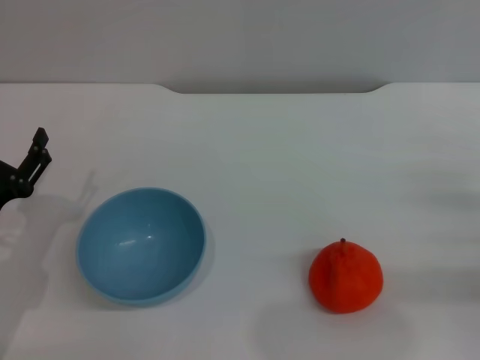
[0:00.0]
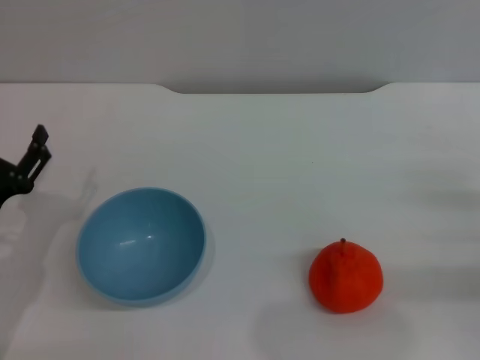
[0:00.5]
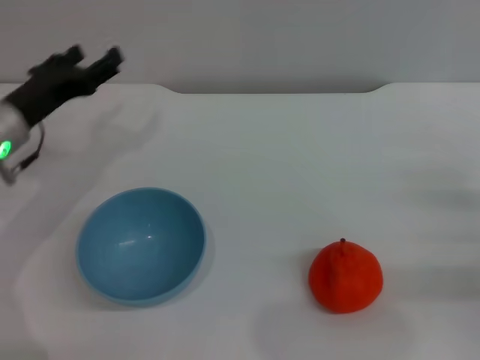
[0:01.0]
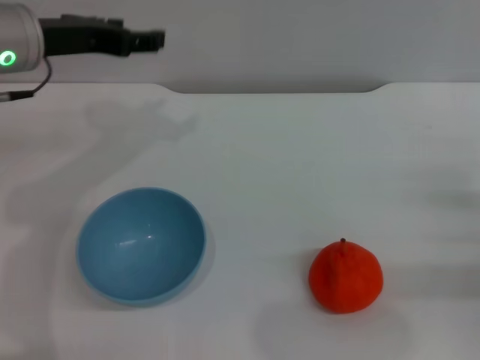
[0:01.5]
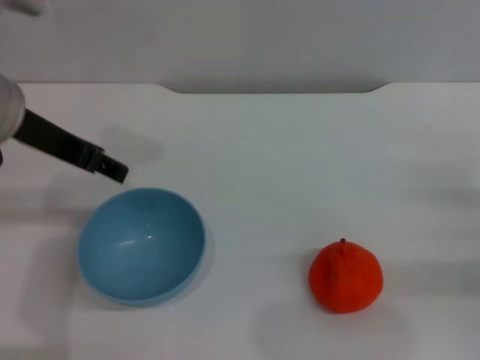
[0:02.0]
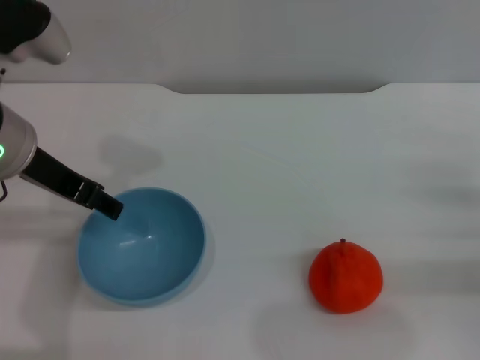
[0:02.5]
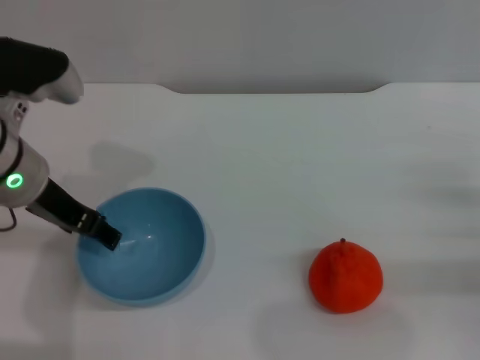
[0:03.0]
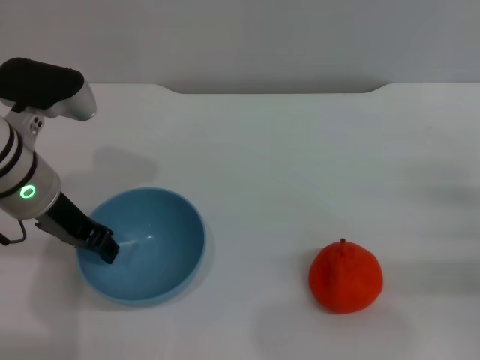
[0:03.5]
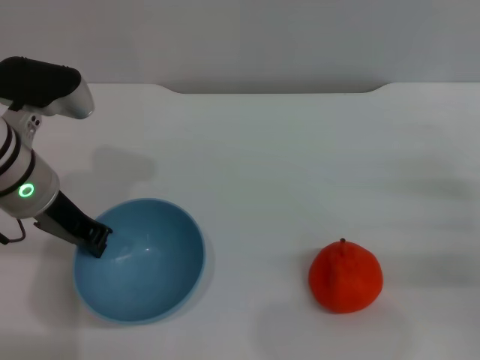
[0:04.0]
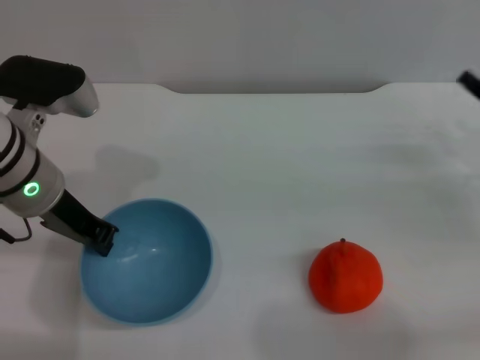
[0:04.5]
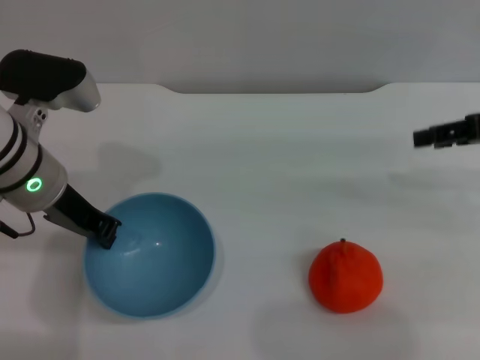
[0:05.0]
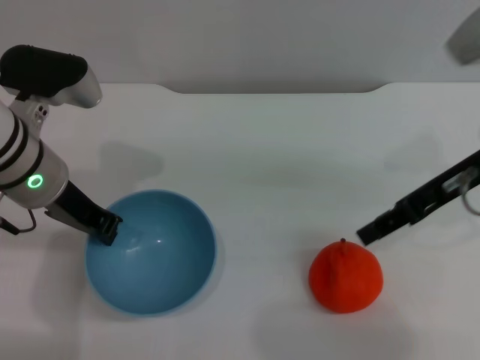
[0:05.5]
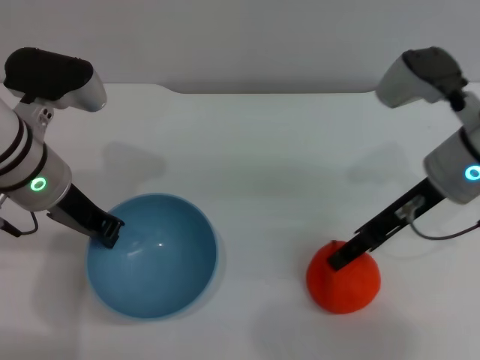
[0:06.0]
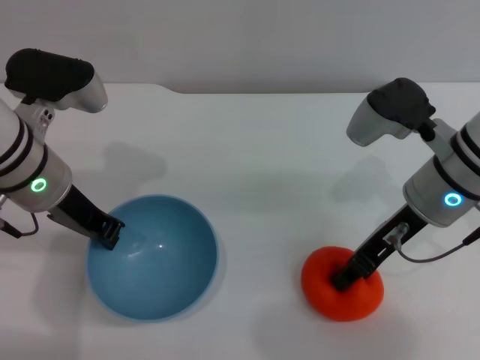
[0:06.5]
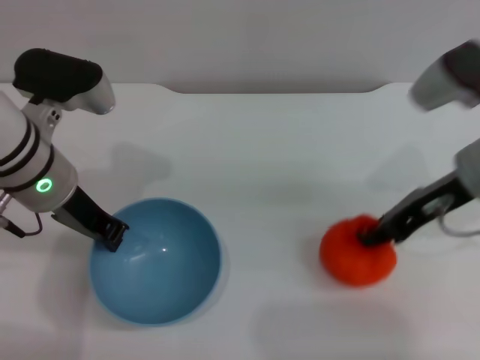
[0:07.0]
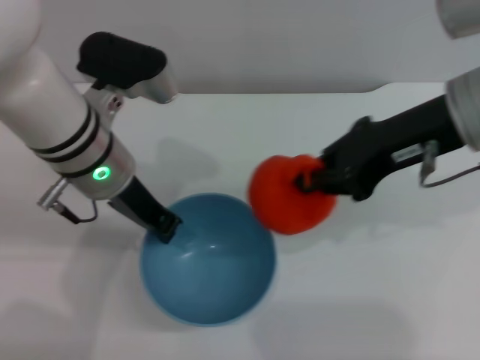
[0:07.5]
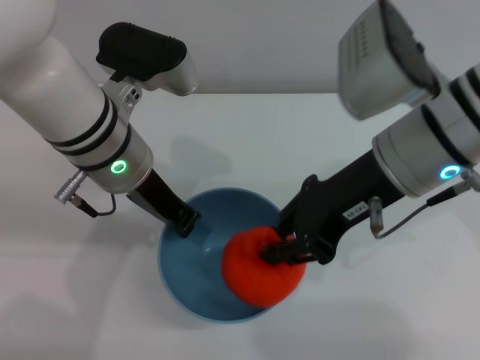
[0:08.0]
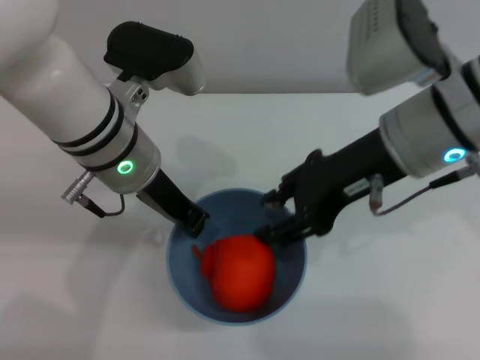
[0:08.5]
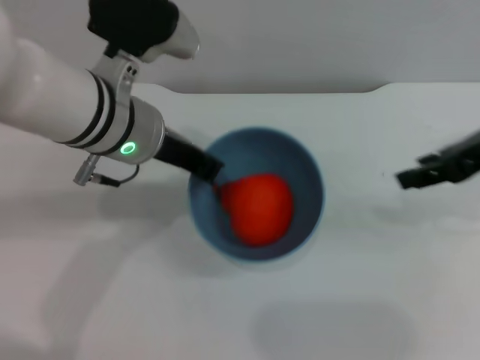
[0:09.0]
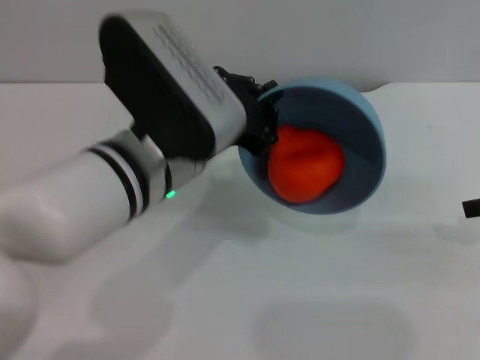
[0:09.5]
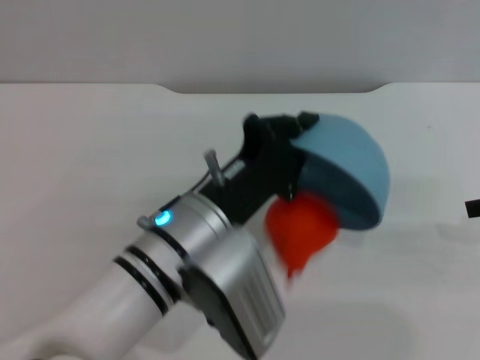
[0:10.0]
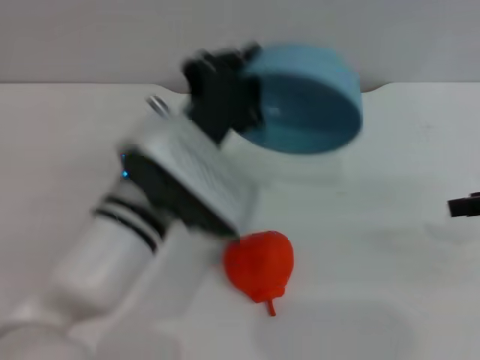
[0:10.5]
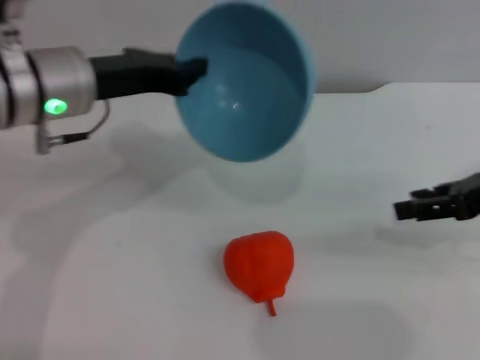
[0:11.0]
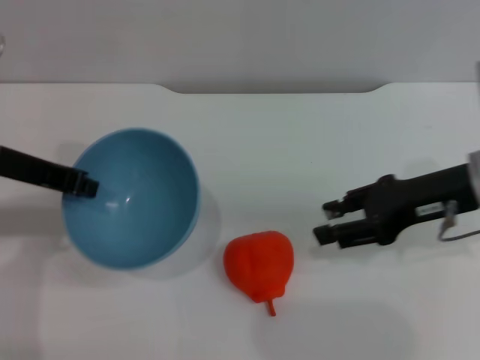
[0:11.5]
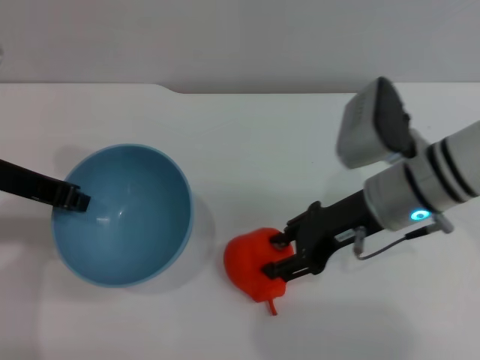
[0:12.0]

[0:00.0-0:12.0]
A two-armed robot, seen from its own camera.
Task of the whole recording: put the orange into the blue bowl and pour it out repeatedly.
Step, 0:00.0 to 0:05.5: Pick up the bowl with the left gripper.
Step, 0:06.0 to 0:07.0: Pick up the orange with the right gripper.
Step, 0:07.5 to 0:08.5: Place the orange into the bowl.
Step, 0:09.0 to 0:10.0: Pour the orange out of the bowl.
0:00.0 to 0:02.0: The left gripper moves upward and forward, some 25 cm.
0:02.0 to 0:04.0: The left gripper shifts approximately 10 cm downward, and closes.
0:04.0 to 0:06.0: The right gripper heads to the left, upward and forward, covering some 20 cm.
0:06.0 to 0:08.0: The left gripper heads to the right, covering some 5 cm; the right gripper heads to the left and upward, covering some 10 cm, and closes.
0:08.0 to 0:10.0: The left gripper goes roughly 15 cm backward, downward and to the right. The right gripper travels to the right by approximately 20 cm, and opens up.
0:10.0 to 0:12.0: The right gripper is displaced to the left and downward by some 20 cm. Meanwhile the left gripper is displaced to the left, upward and forward by some 20 cm.

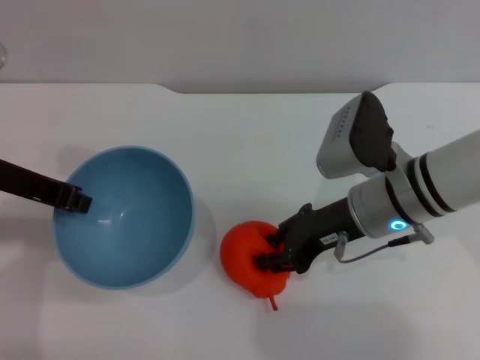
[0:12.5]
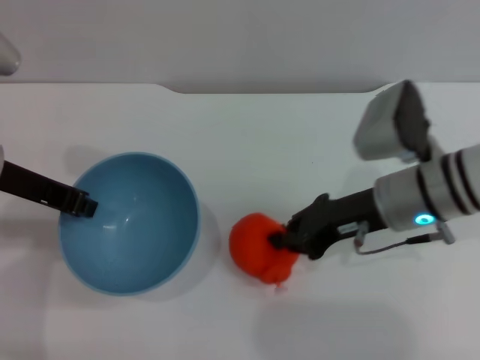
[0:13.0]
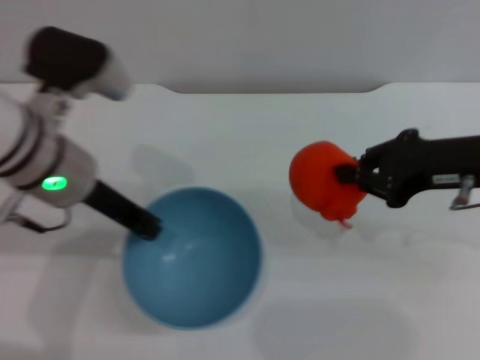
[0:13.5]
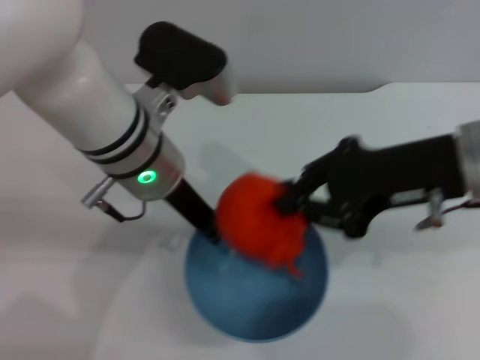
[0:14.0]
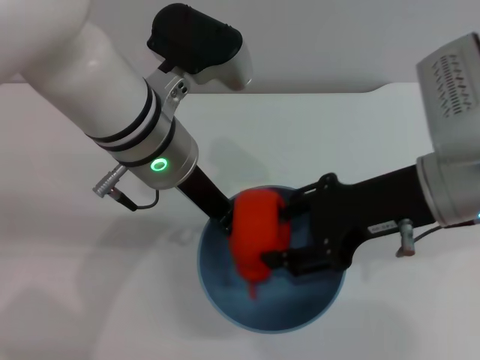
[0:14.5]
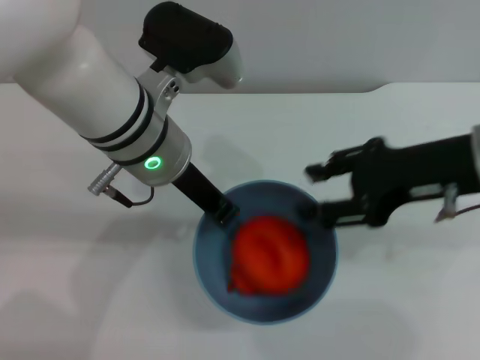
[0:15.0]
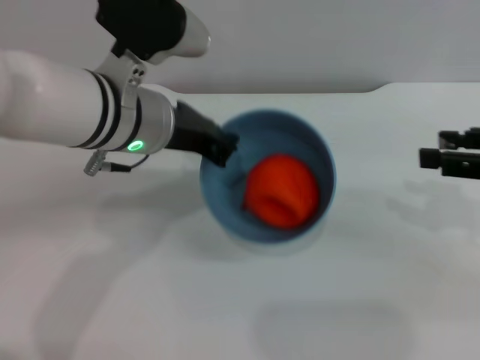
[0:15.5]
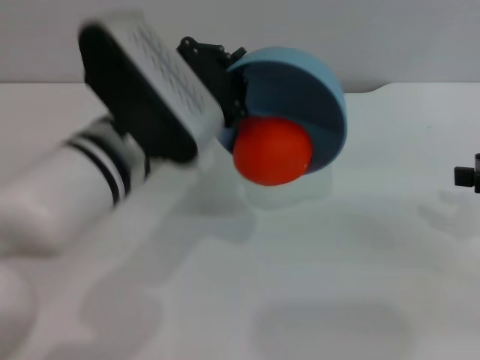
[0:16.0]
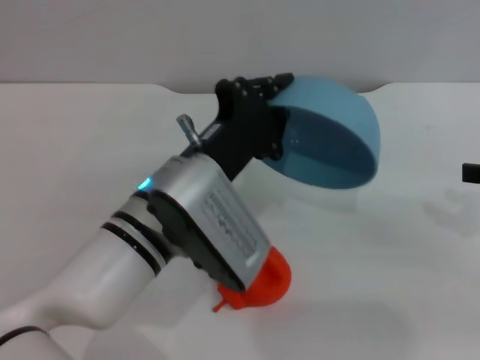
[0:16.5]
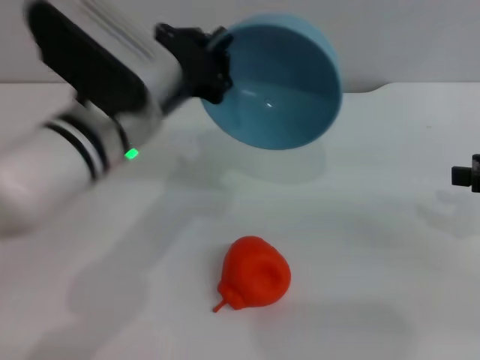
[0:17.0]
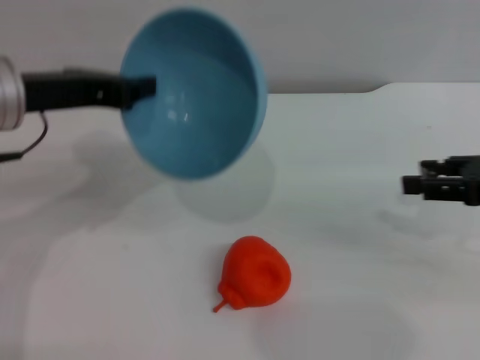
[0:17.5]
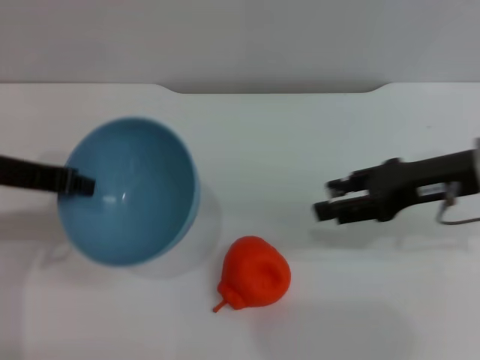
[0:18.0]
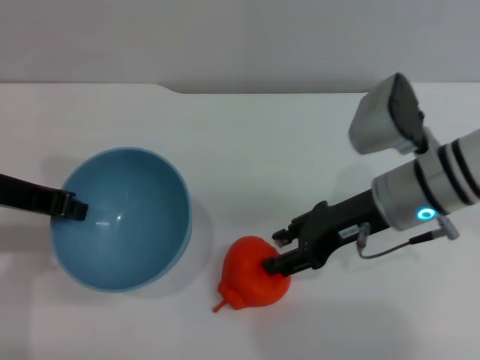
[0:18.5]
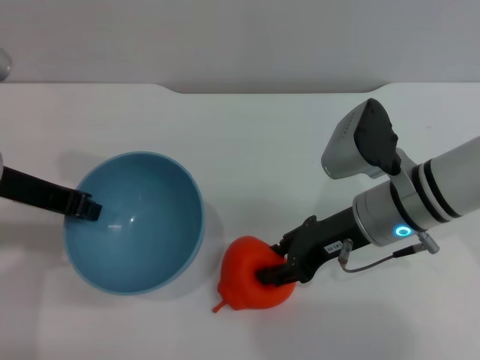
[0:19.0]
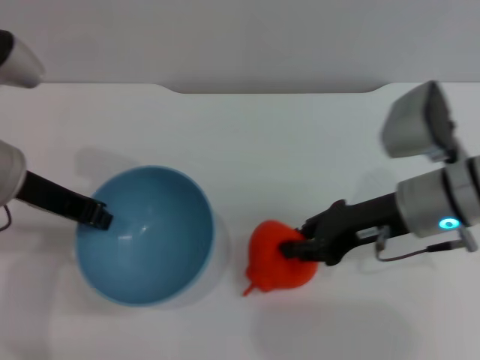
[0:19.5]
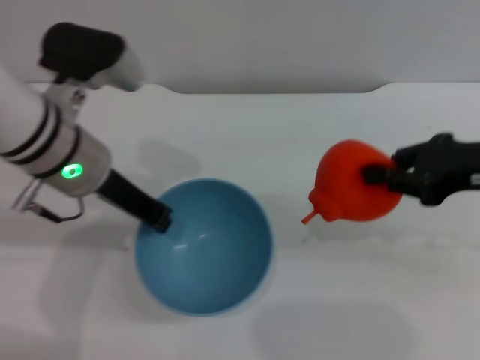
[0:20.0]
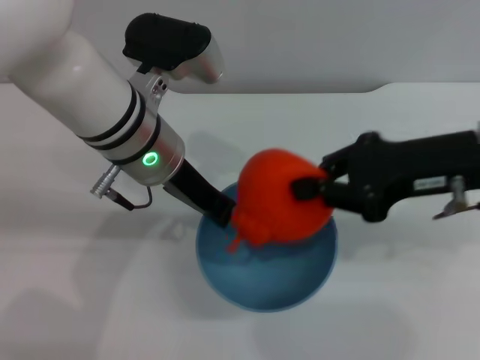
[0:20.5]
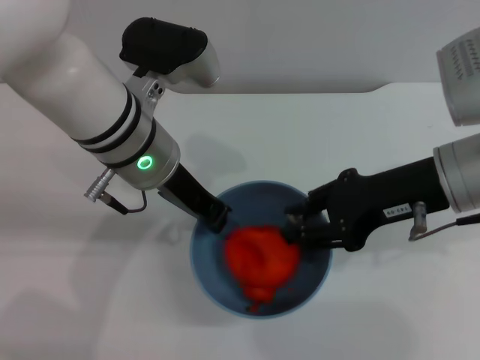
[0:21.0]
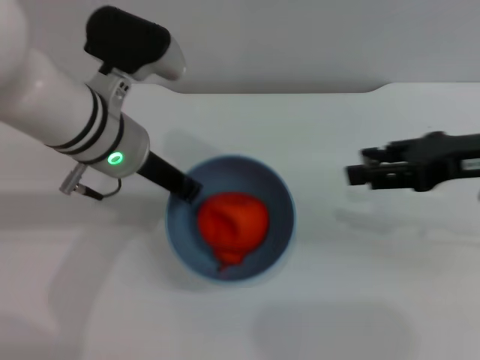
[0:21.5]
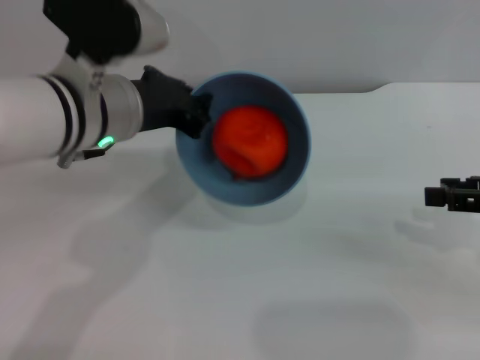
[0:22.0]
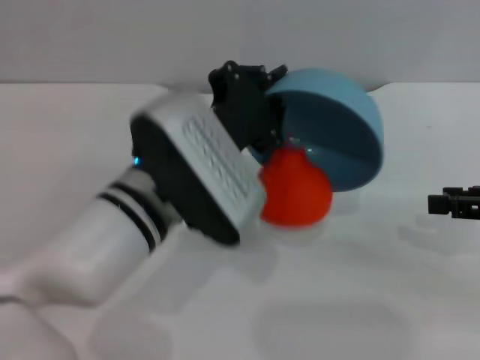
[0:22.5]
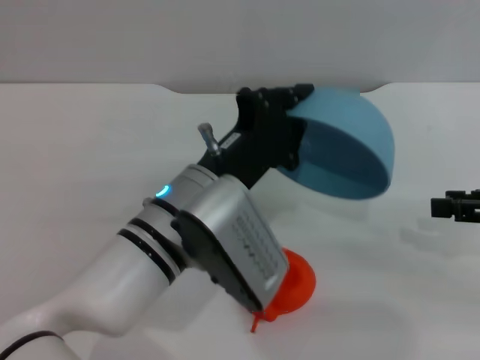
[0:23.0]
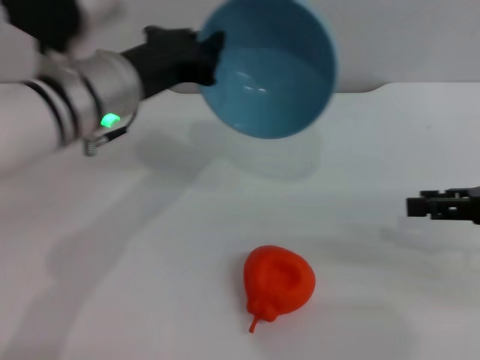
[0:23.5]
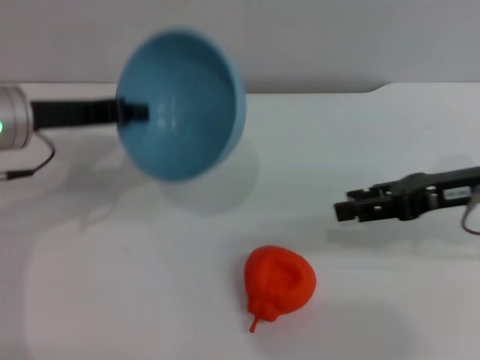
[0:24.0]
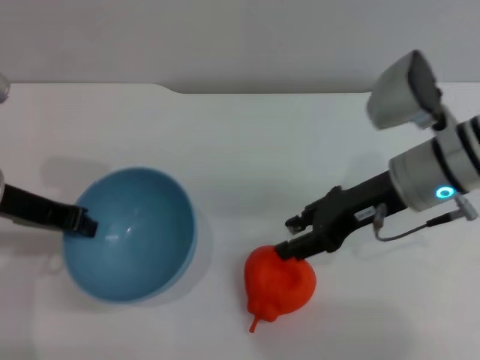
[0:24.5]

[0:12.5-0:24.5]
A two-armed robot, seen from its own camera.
Task of the whole recording: put the orange into the blue bowl and pour it out repeatedly.
Step, 0:13.5 to 0:15.0: Place the orange into the bowl.
Step, 0:15.5 to 0:16.0: Pour the orange out of the bowl.
Step, 0:16.5 to 0:19.5: Pick up the orange with the right gripper.
Step, 0:20.0 to 0:21.0: Place the orange into the bowl.
Step, 0:21.5 to 0:22.5: Pour the orange out of the bowl.
0:12.5 to 0:14.5: The left gripper shifts approximately 15 cm to the right; the right gripper travels upward by roughly 10 cm, and closes and opens again.
0:14.5 to 0:16.5: The left gripper shifts about 10 cm downward and backward. The right gripper moves to the right, about 20 cm, and opens.
0:16.5 to 0:18.5: The left gripper travels to the left and upward by some 20 cm; the right gripper heads to the left, covering about 20 cm.
0:18.5 to 0:20.5: The right gripper heads upward and to the right, covering about 10 cm, and closes up, while the left gripper shifts approximately 15 cm to the right.
0:20.5 to 0:22.5: The left gripper shifts some 10 cm backward. Meanwhile the right gripper moves to the right, approximately 10 cm, and opens up.
0:22.5 to 0:24.5: The right gripper heads to the left and forward, covering about 20 cm; the left gripper is displaced to the left by approximately 20 cm.

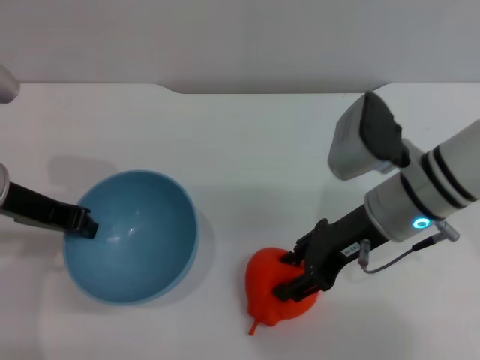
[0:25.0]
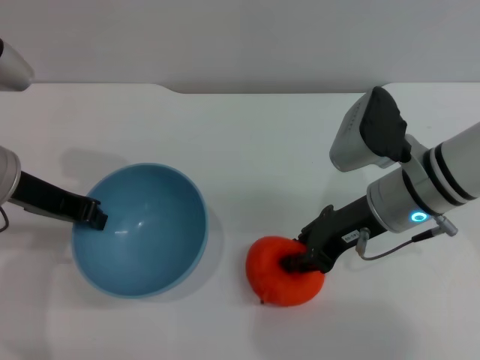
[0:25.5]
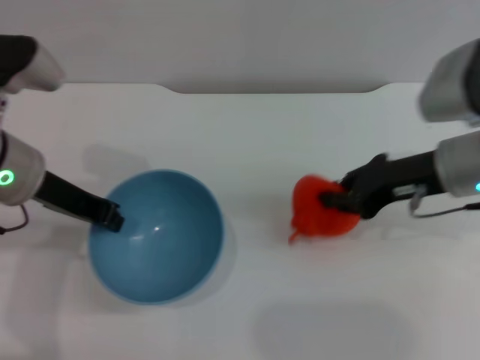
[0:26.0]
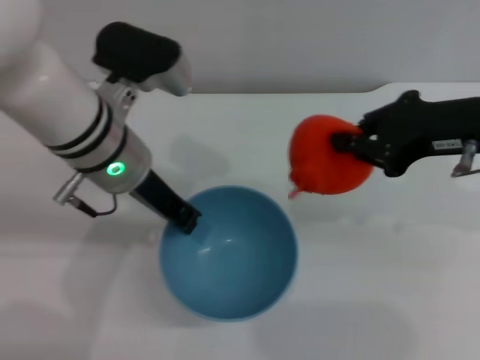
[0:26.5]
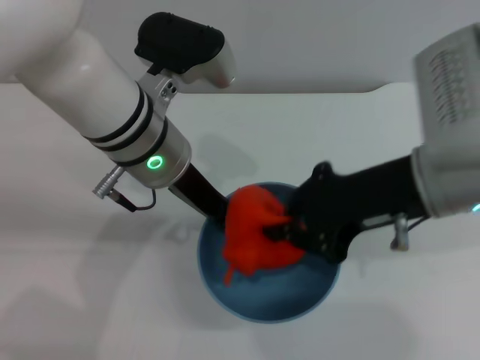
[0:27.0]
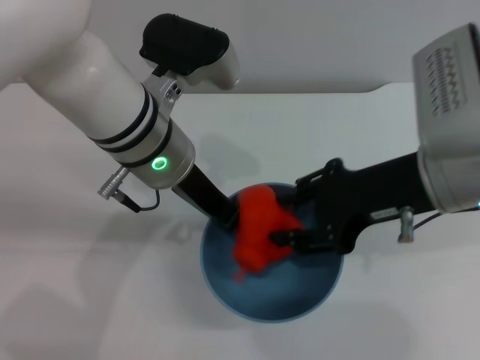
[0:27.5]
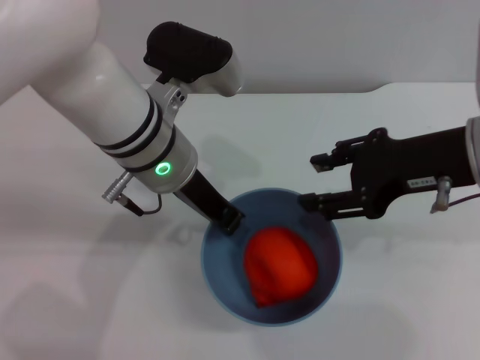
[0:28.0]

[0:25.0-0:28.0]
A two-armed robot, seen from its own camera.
Task of the whole recording: put the orange into the blue bowl and pour it out repeatedly.
Step, 0:26.5 to 0:27.5: Place the orange into the bowl.
0:25.0 to 0:26.5: The left gripper moves to the right, about 10 cm. Meanwhile the right gripper goes about 15 cm upward and to the right, and closes its fingers.
0:26.5 to 0:28.0: The right gripper opens up.
